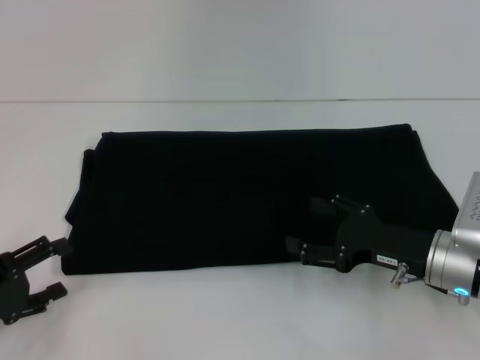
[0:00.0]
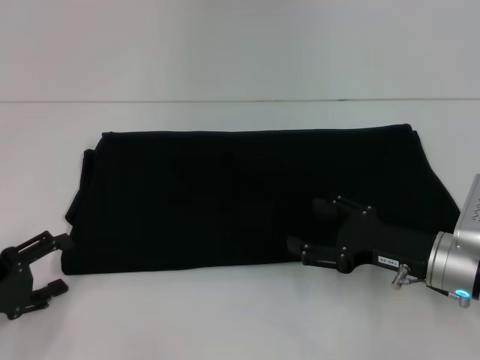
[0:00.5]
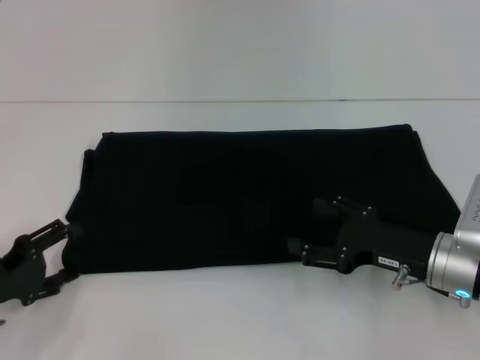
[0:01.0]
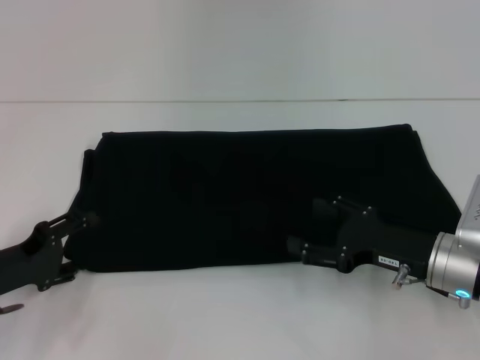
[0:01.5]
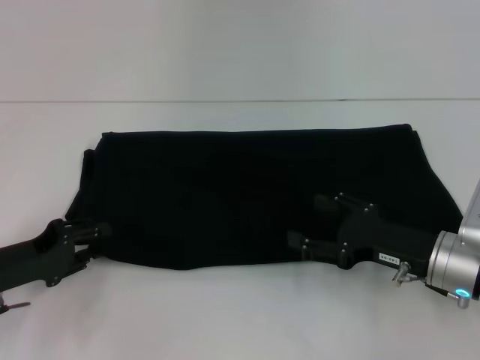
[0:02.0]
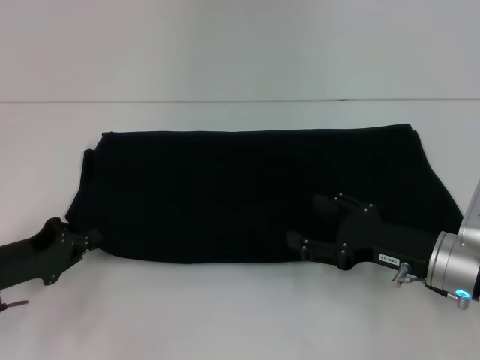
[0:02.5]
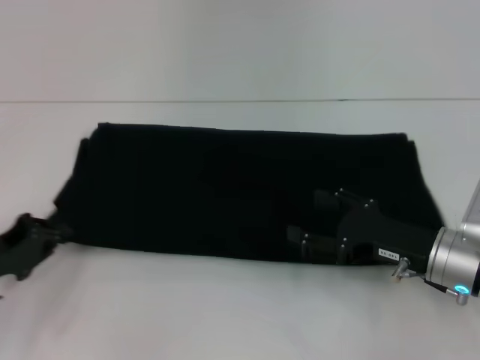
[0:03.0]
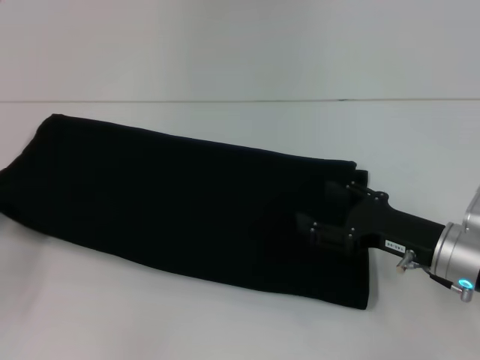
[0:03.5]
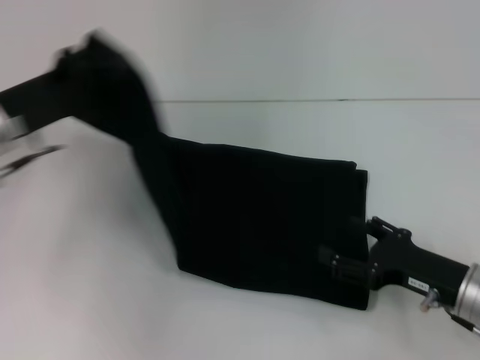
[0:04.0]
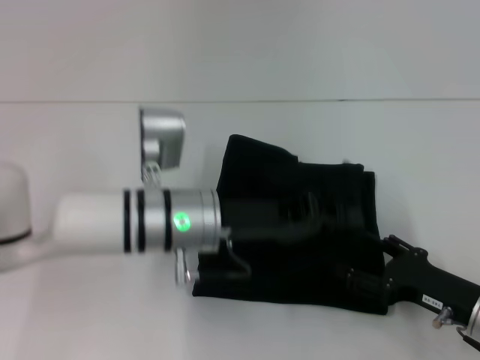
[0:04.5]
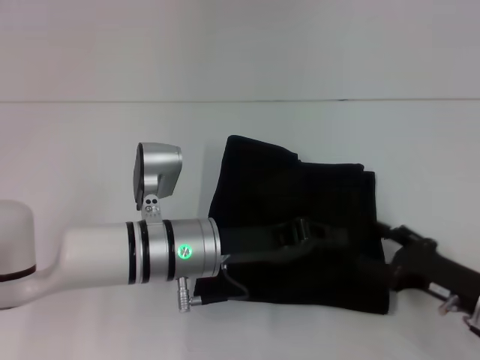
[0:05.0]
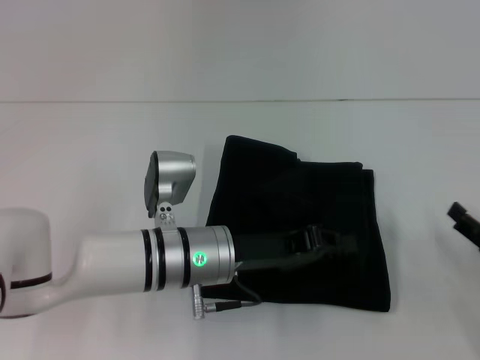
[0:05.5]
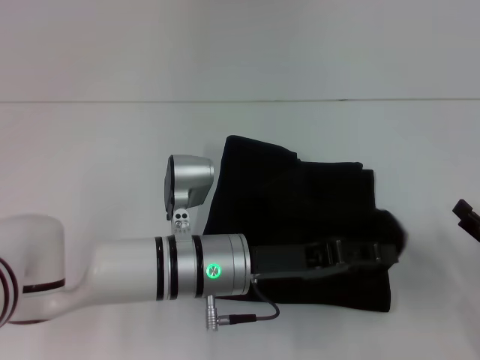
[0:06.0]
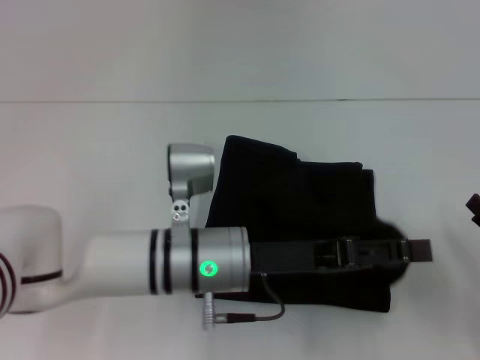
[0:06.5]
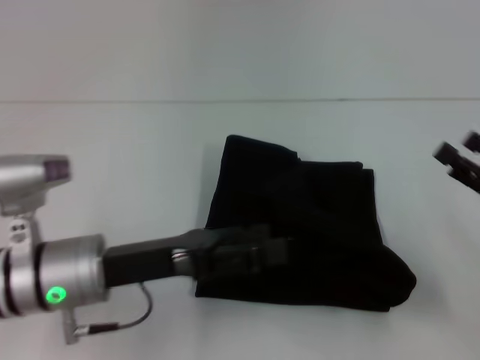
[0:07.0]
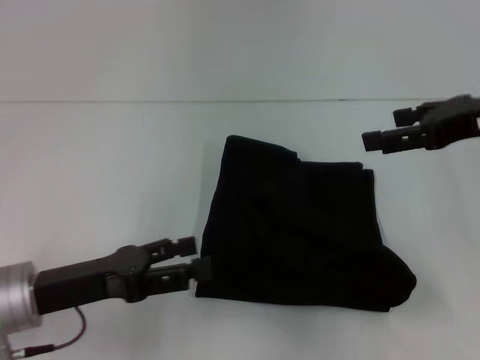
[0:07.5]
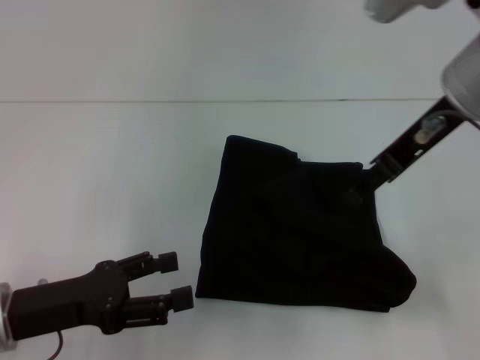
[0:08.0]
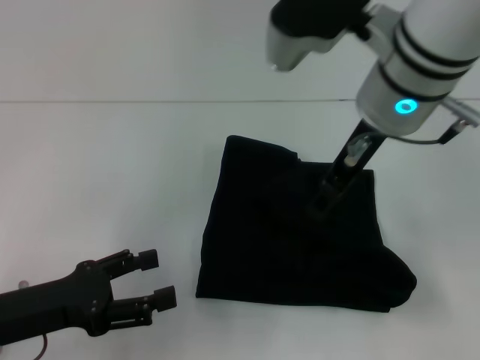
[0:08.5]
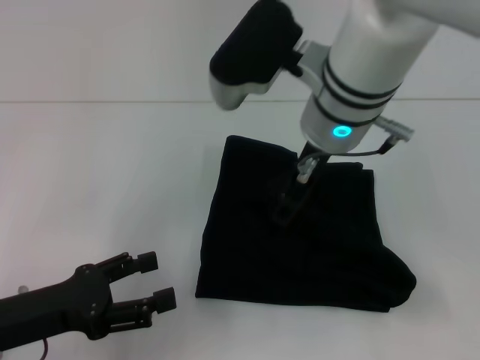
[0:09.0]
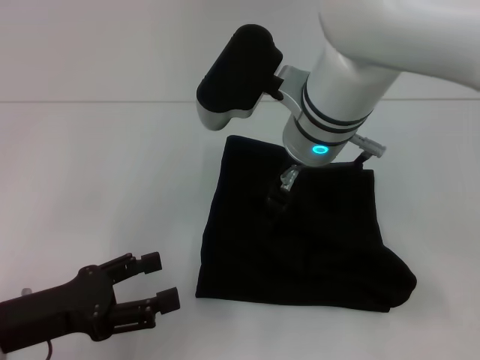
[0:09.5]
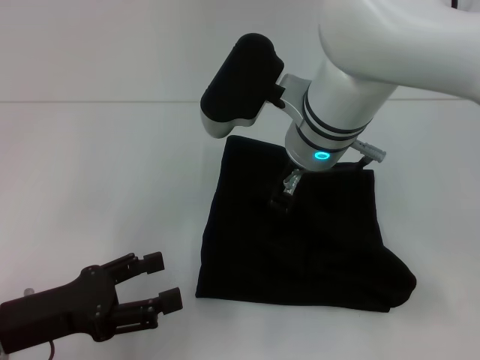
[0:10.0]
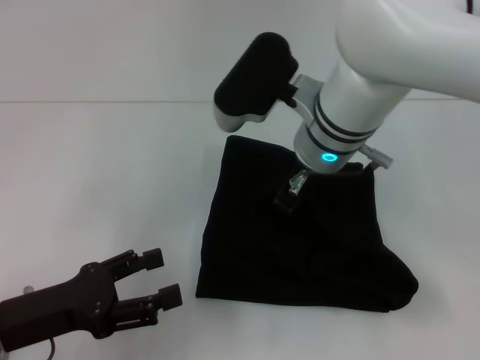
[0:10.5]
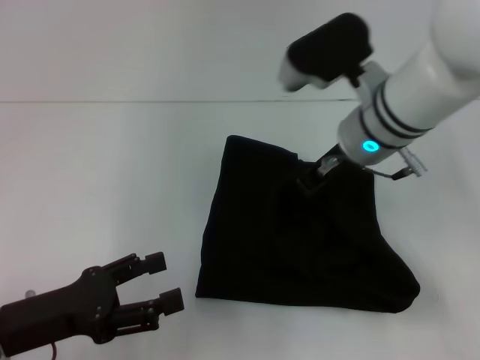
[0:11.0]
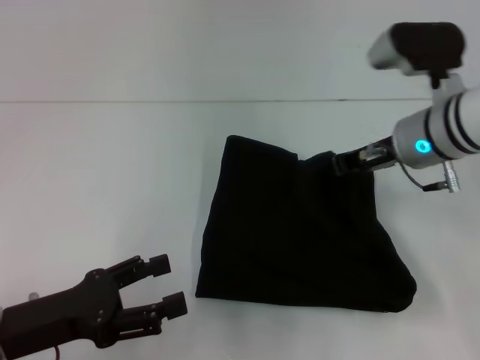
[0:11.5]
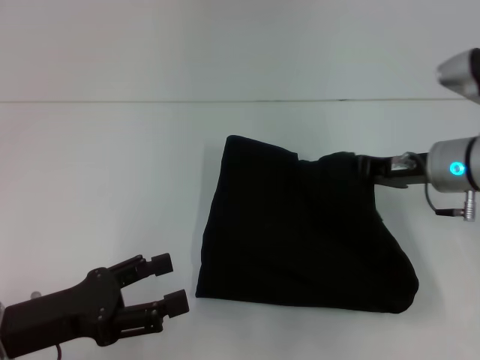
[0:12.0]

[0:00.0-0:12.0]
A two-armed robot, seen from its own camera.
Step, 0:00.0 to 0:06.5: Fold the clothes with your left hand.
0:00.0 to 0:02.0: The left gripper shifts approximately 5 cm forward.
0:02.0 to 0:04.0: The left gripper travels upward, forward and to the right by some 15 cm, and closes its fingers.
0:04.0 to 0:06.0: The left gripper travels to the right and downward by roughly 20 cm, while the right gripper heads to the right, covering about 10 cm.
0:06.0 to 0:08.0: The right gripper is displaced upward, to the left and forward by some 35 cm, while the left gripper shifts some 20 cm to the left, and opens.
0:08.0 to 0:10.0: The right gripper moves to the left and downward, roughly 15 cm.
0:10.0 to 0:12.0: The right gripper is displaced to the right and downward by approximately 20 cm, and closes its fingers.

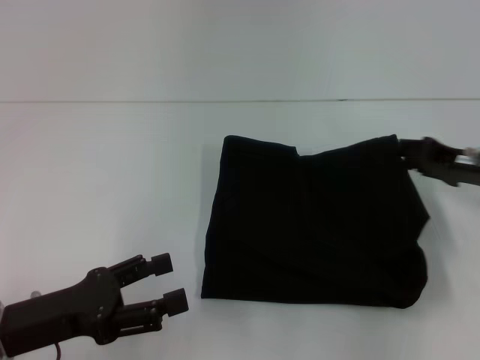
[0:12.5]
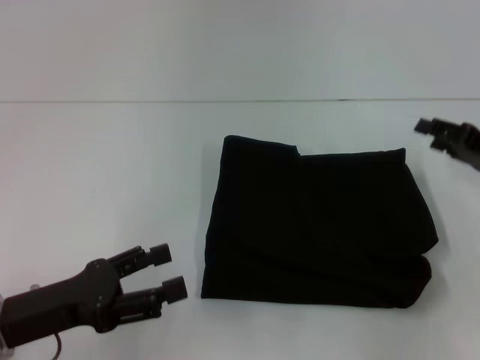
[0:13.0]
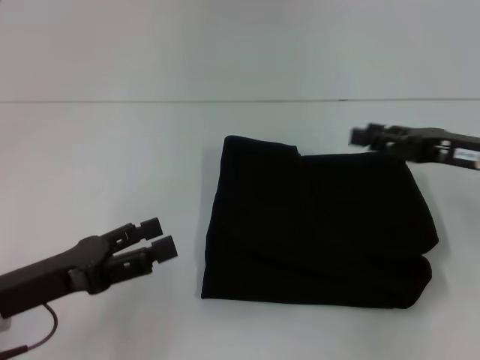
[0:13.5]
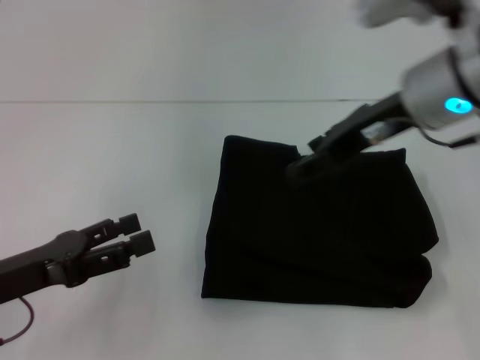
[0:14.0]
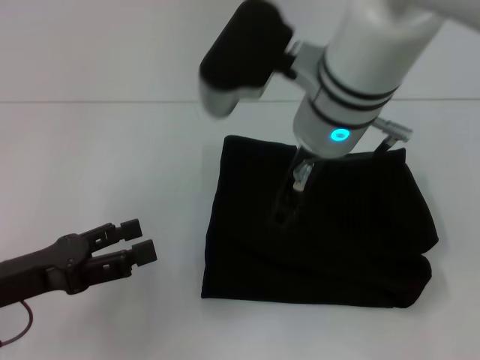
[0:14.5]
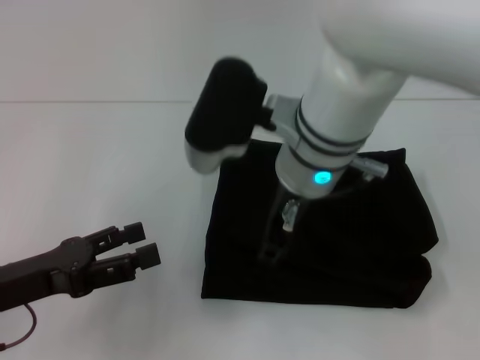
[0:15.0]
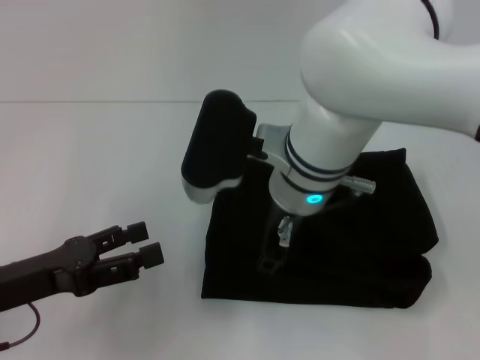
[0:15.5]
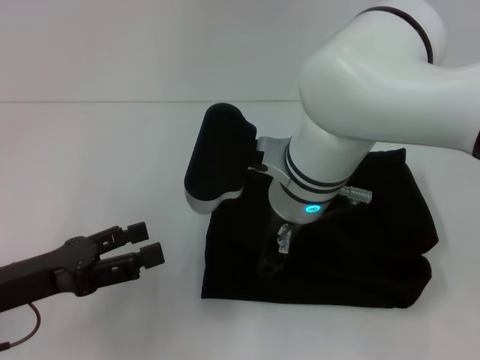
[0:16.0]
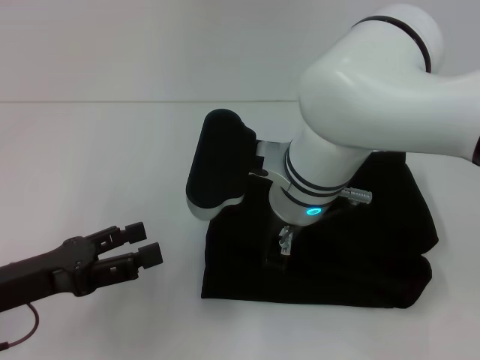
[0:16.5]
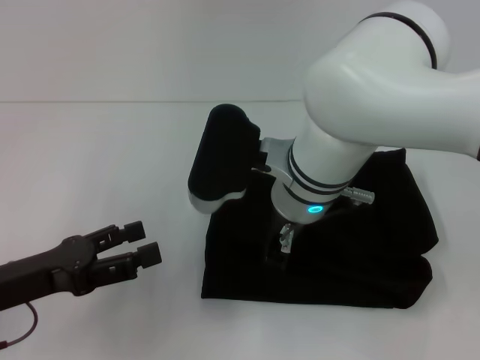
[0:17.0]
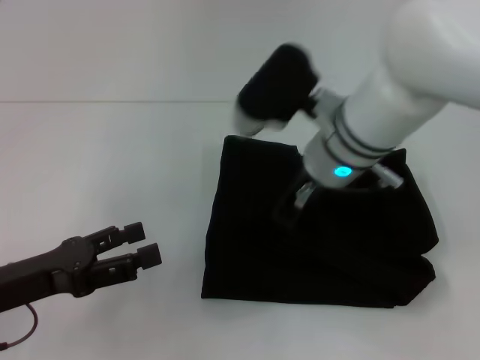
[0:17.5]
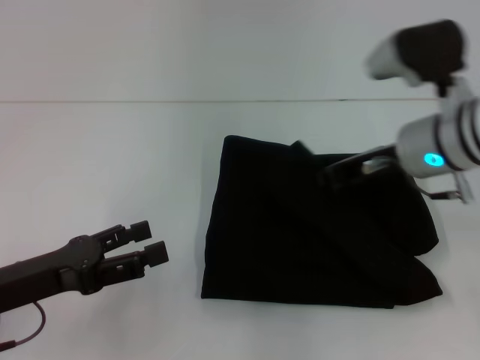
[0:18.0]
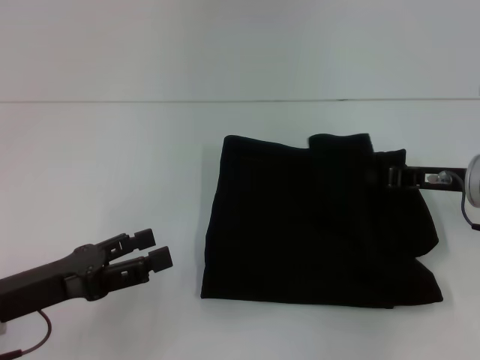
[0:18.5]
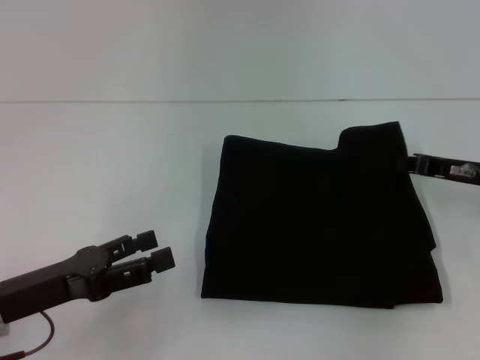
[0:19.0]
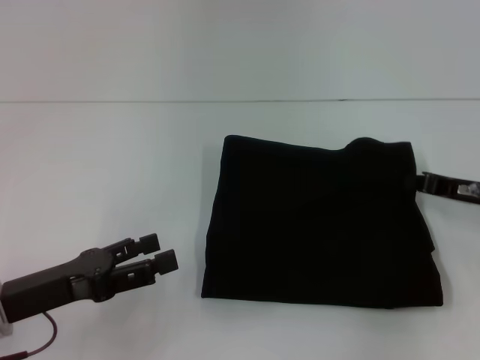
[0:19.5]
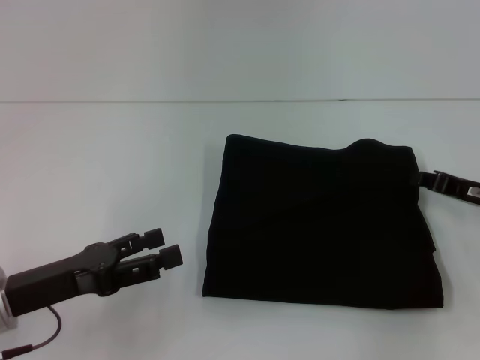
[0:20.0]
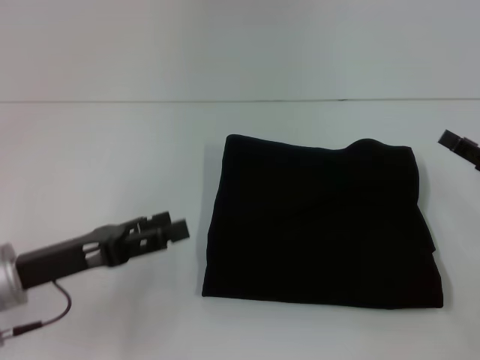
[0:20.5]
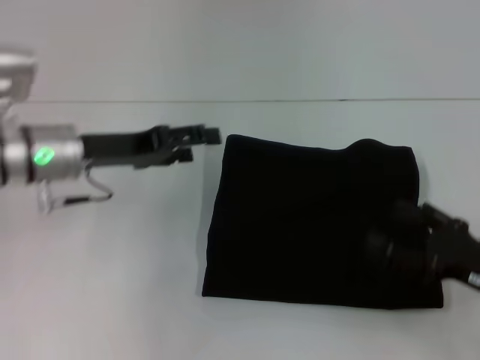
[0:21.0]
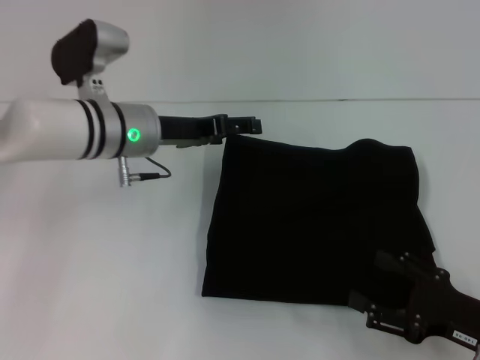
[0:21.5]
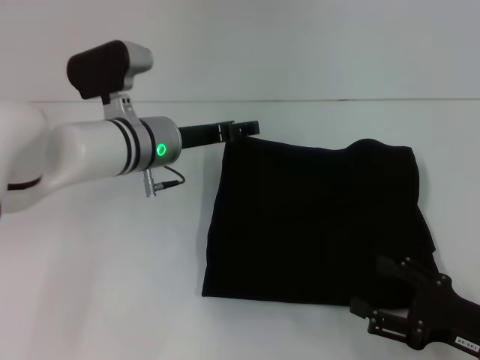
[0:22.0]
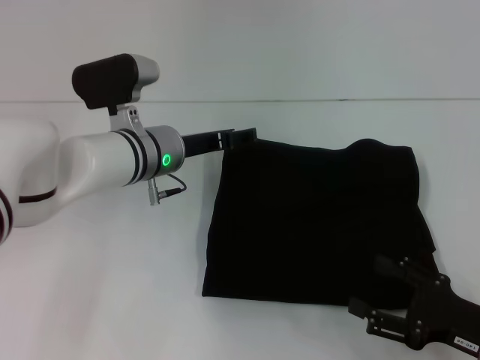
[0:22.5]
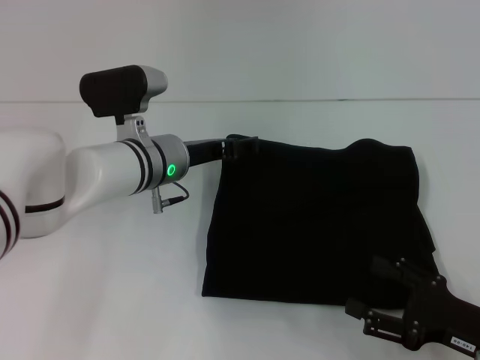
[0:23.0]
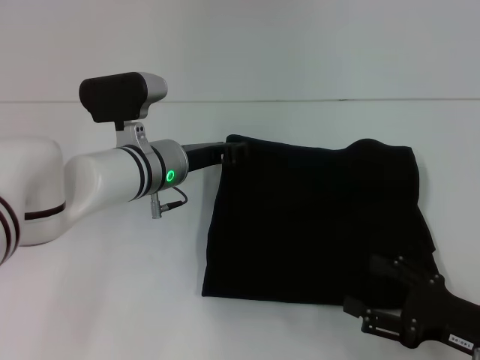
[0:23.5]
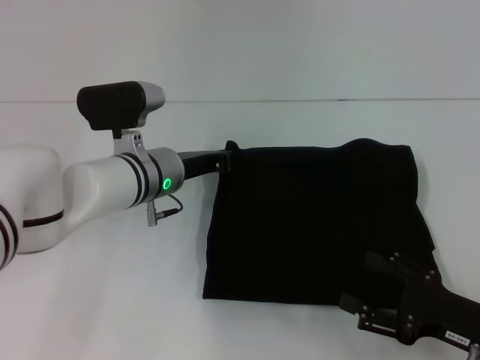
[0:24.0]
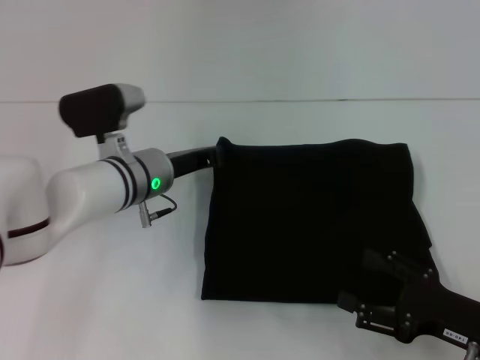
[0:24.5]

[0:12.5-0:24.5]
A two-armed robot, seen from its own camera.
0:12.5 to 0:14.5: The right gripper moves to the left and upward, some 30 cm.
0:14.5 to 0:16.5: The right gripper moves downward, about 10 cm.
0:16.5 to 0:18.5: The right gripper is displaced to the right by about 25 cm, and closes its fingers.
0:18.5 to 0:20.5: The right gripper heads to the right and backward, covering some 10 cm, and opens.
0:20.5 to 0:22.5: The left gripper heads forward and to the right, covering roughly 20 cm. Meanwhile the right gripper is displaced backward, downward and to the left by roughly 15 cm, and opens its fingers.
0:22.5 to 0:24.5: The left gripper closes up.

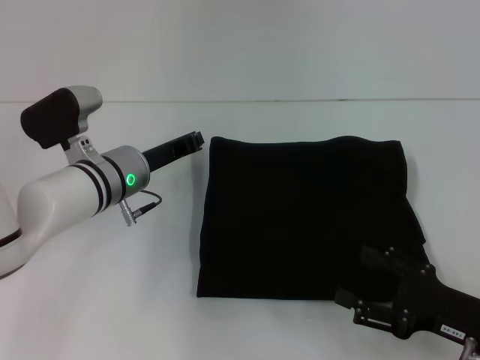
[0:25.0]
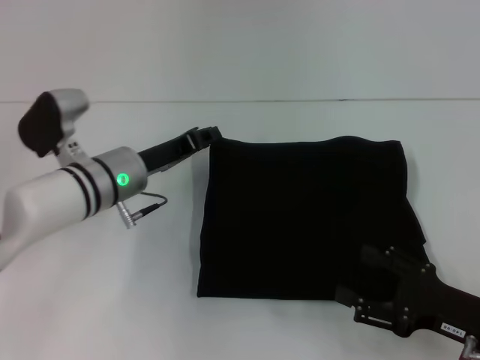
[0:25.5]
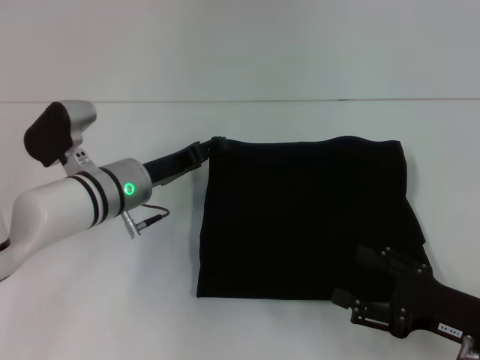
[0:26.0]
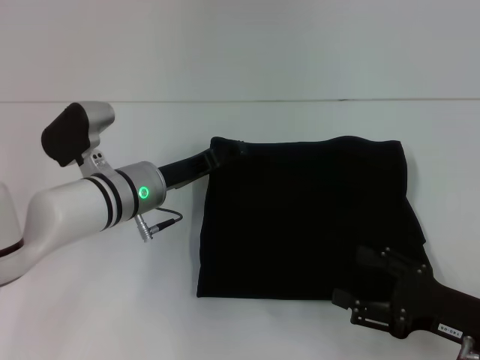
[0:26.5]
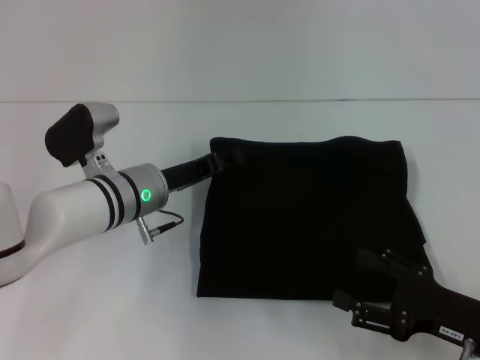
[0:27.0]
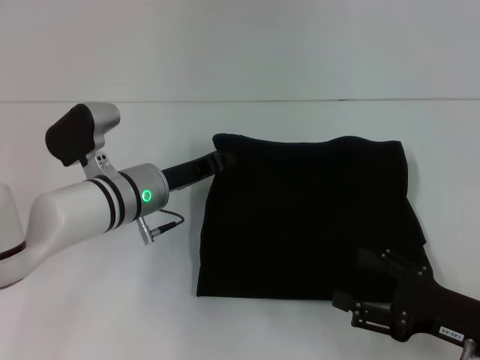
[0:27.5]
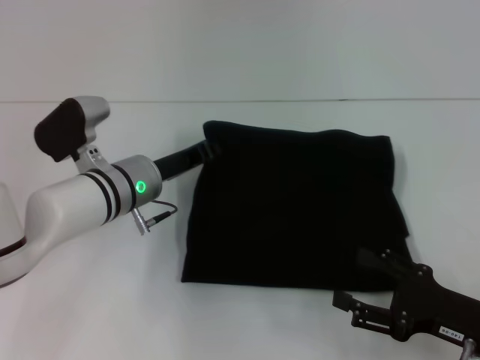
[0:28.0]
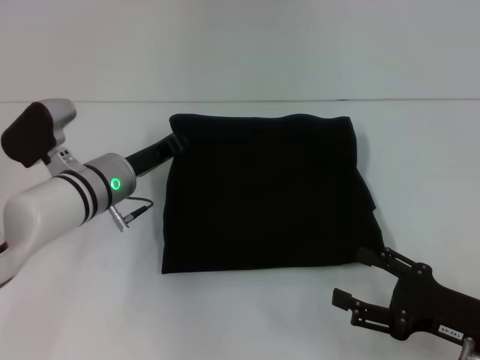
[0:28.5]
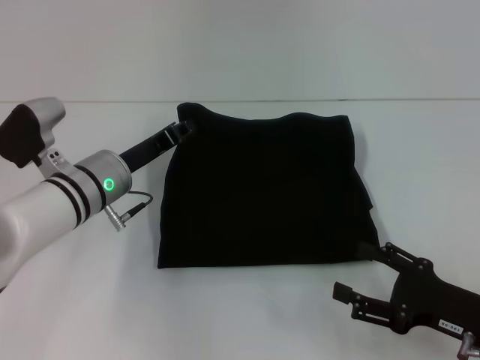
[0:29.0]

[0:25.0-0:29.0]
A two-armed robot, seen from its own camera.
0:25.0 to 0:27.0: The left gripper opens.
0:27.0 to 0:29.0: The left gripper closes up.
